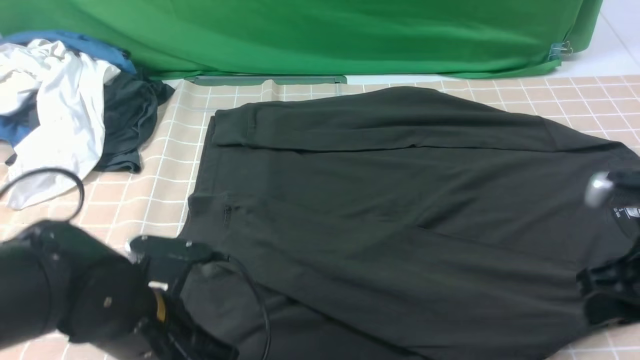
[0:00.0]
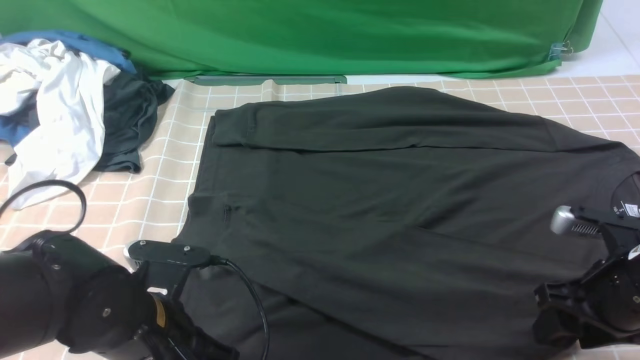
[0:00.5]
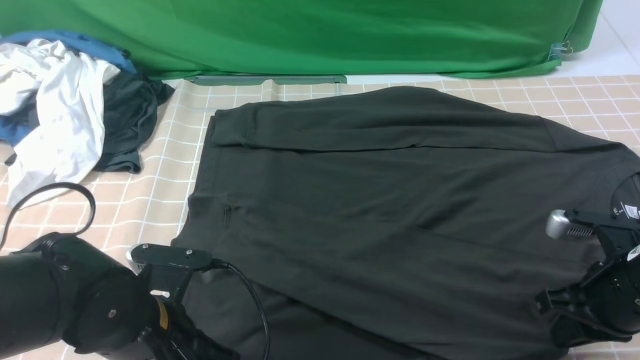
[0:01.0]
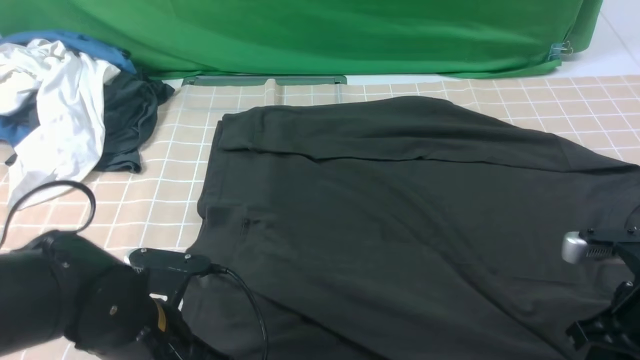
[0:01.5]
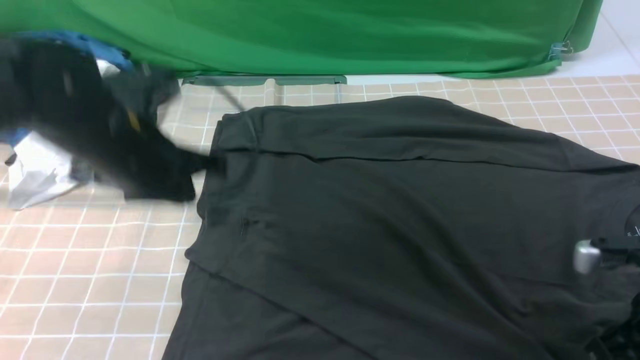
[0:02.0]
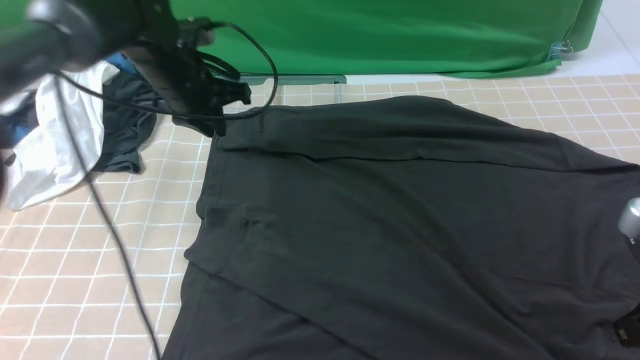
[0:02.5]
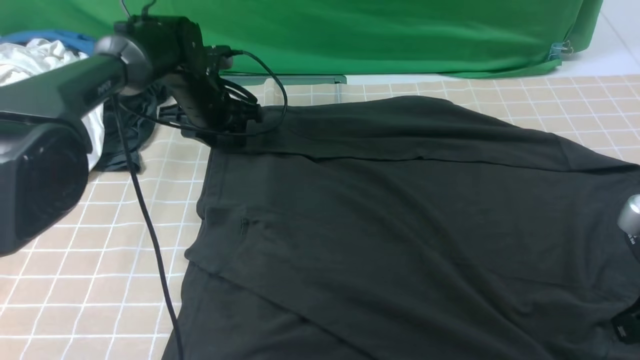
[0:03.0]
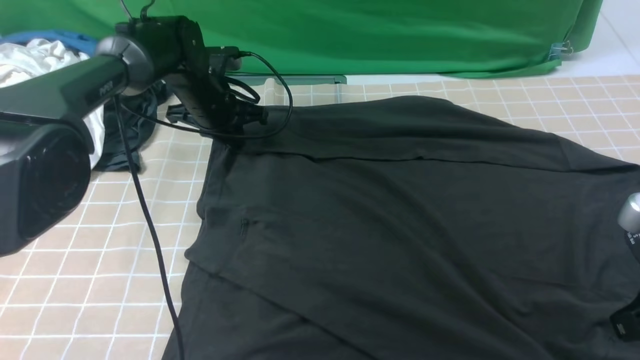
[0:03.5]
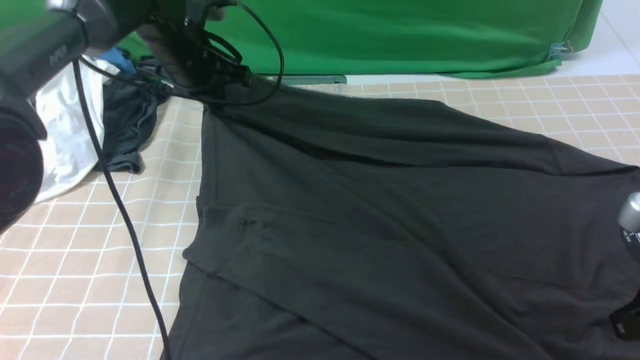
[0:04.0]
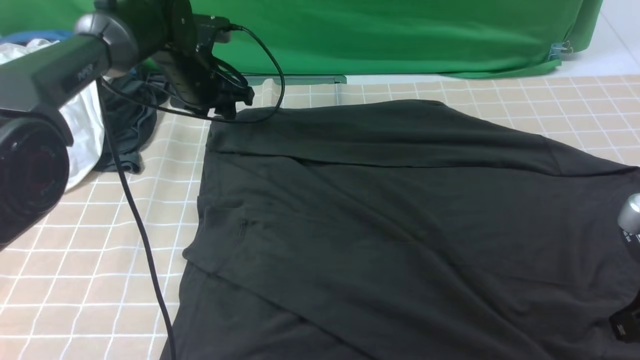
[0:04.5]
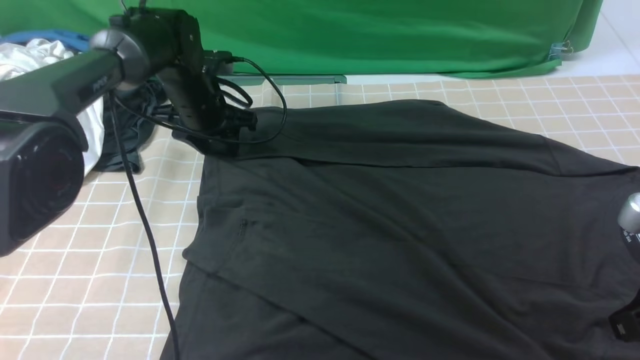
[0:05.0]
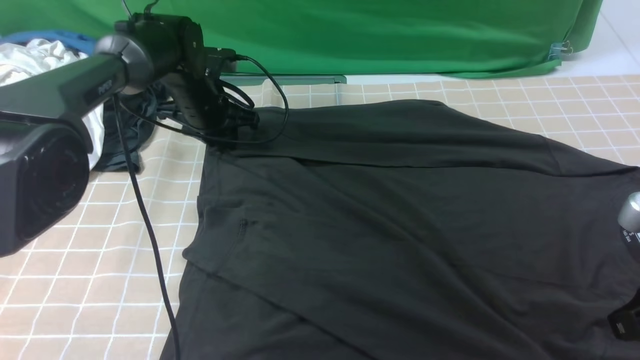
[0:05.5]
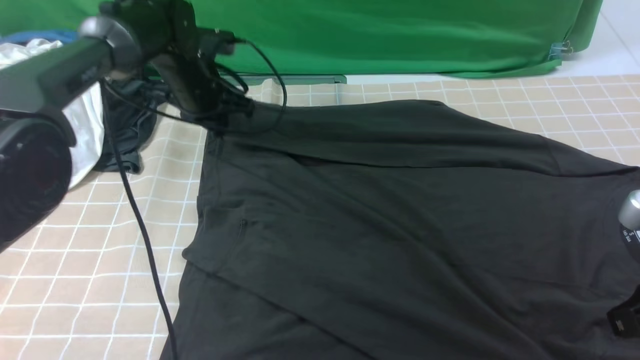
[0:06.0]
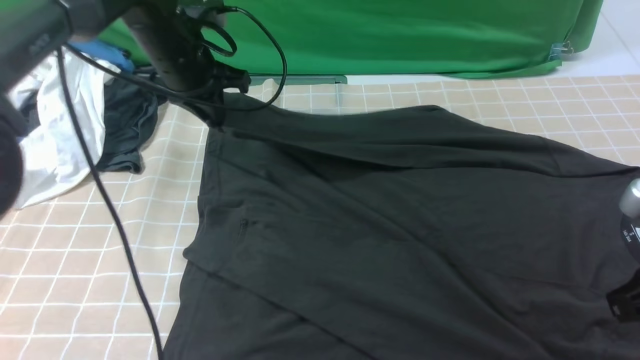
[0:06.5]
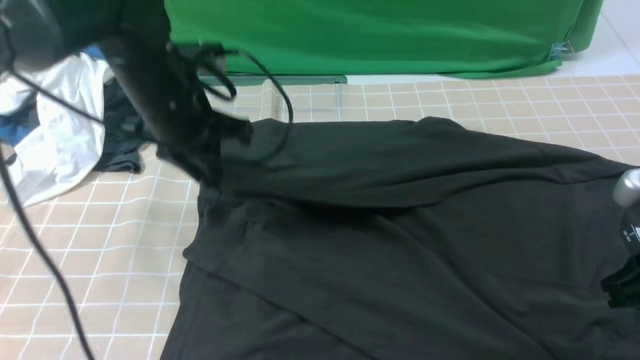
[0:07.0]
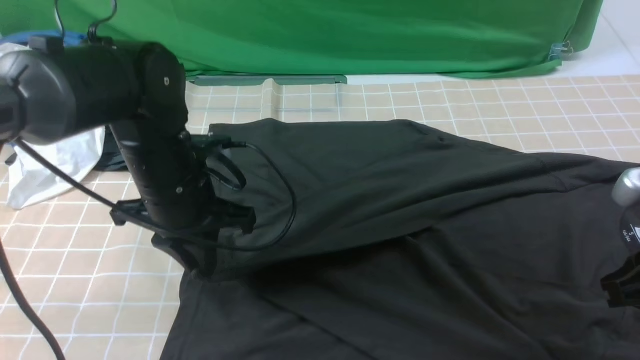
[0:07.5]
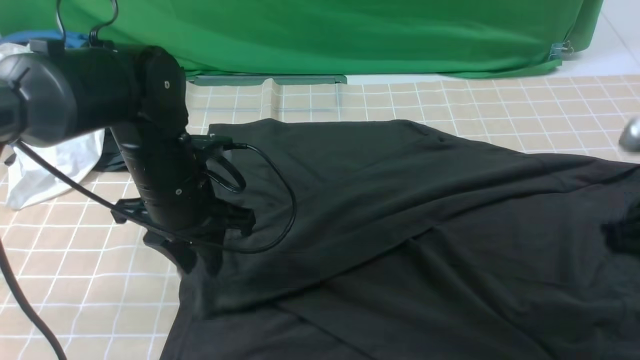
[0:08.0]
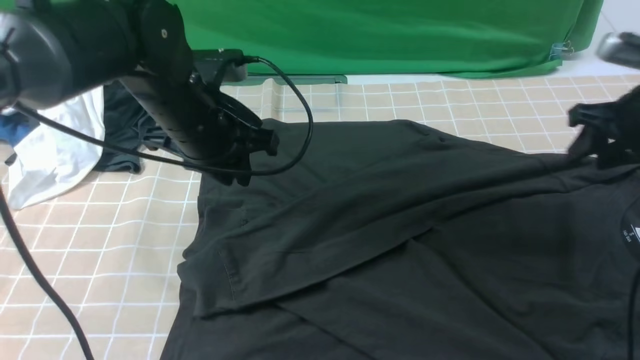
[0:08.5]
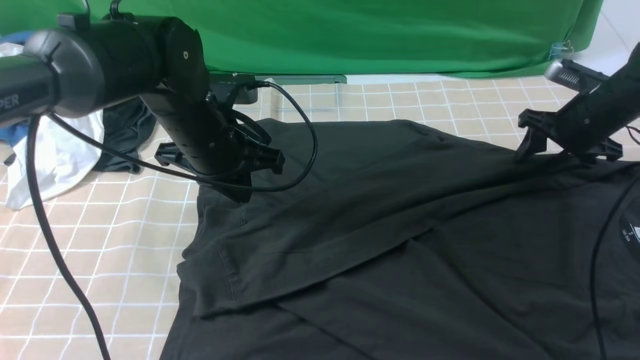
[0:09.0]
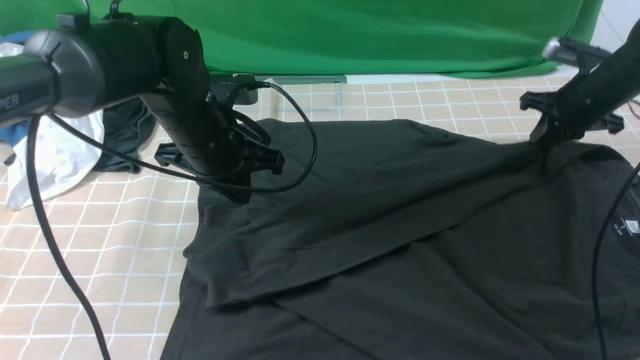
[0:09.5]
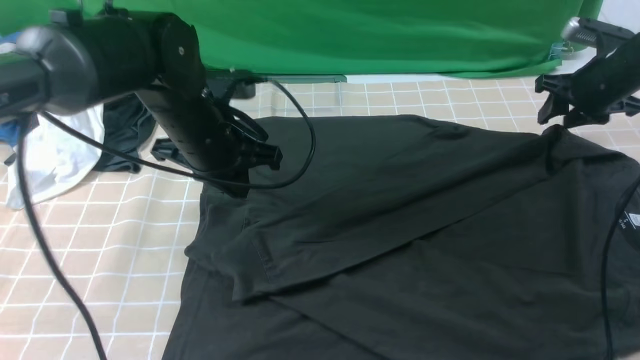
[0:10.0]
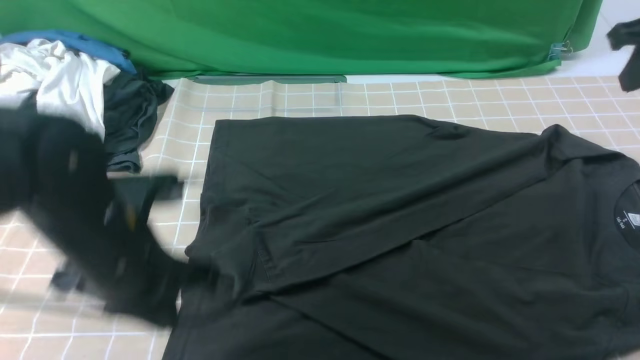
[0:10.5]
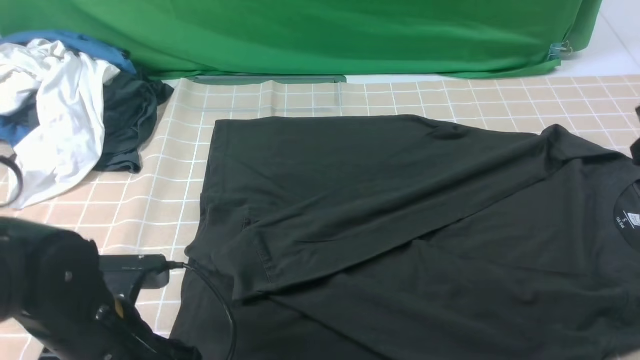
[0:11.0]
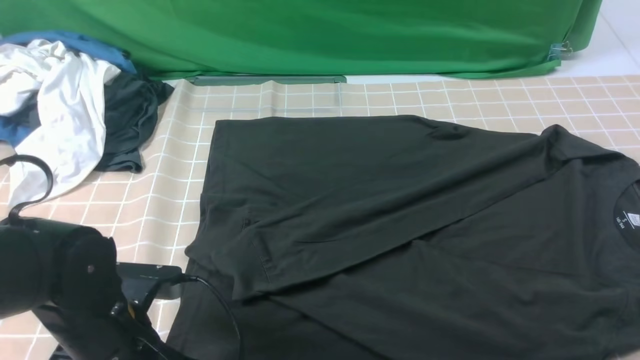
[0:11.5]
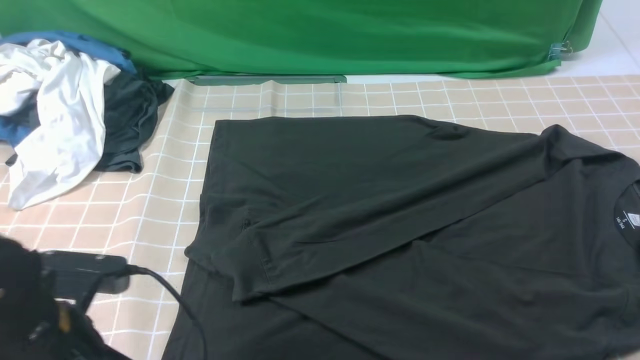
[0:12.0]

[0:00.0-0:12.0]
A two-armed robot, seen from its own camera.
Step, 0:00.0 to 0:05.5: use the left arm to clamp the cuff farthest from it.
Step, 0:06.0 to 0:08.0: use the left arm to drag and drop the cuff onto the cuff closest to the left arm.
0:00.0 to 0:02.0: The right gripper closes, then reopens, while the left gripper goes roughly 15 cm forward and upward.
0:02.0 to 0:04.0: The left gripper travels forward by approximately 20 cm, and opens, then closes again.
0:04.0 to 0:06.0: The left gripper opens, then closes again.
0:06.0 to 0:08.0: The right gripper goes about 5 cm forward. The left gripper moves backward, about 20 cm, and opens its fingers.
0:08.0 to 0:10.0: The right gripper heads forward, covering roughly 25 cm; the left gripper closes its fingers.
0:10.0 to 0:12.0: The two grippers go approximately 25 cm backward. The right gripper closes, then reopens, while the left gripper opens and closes again.

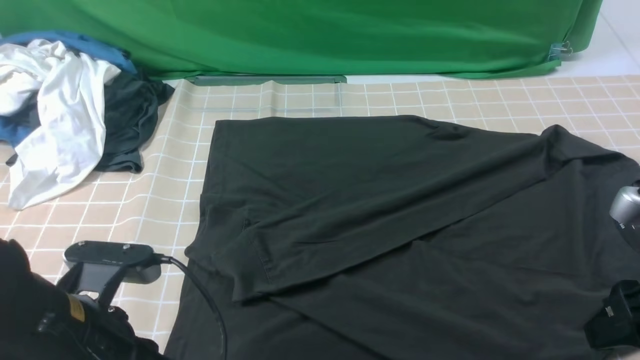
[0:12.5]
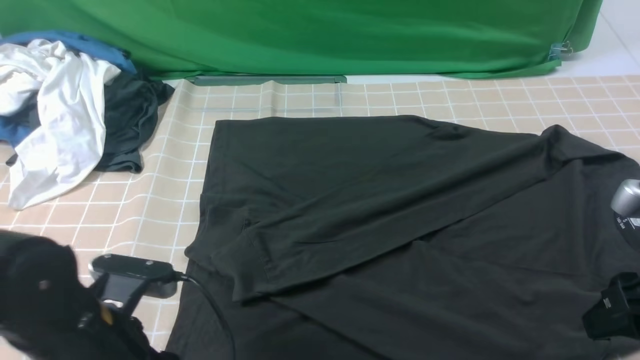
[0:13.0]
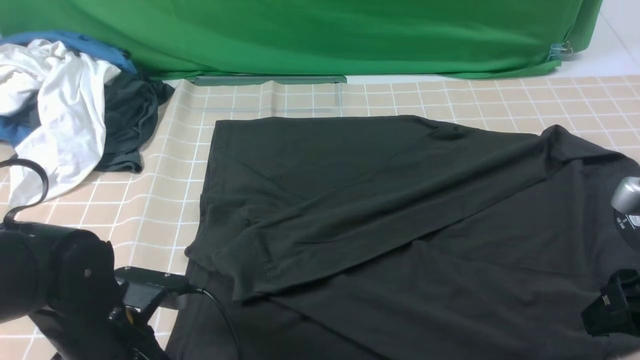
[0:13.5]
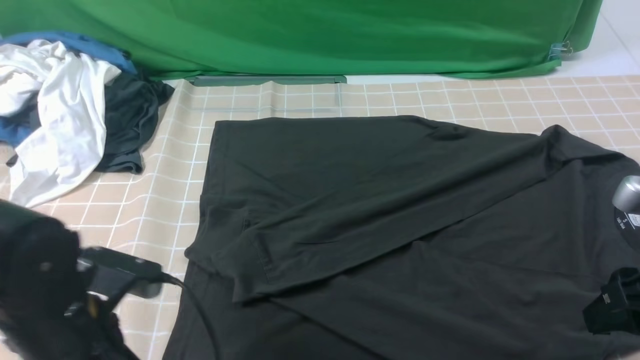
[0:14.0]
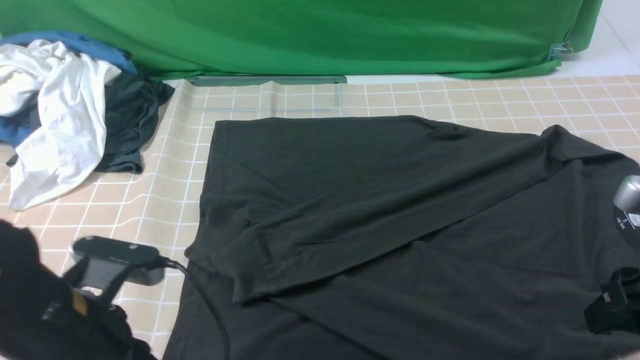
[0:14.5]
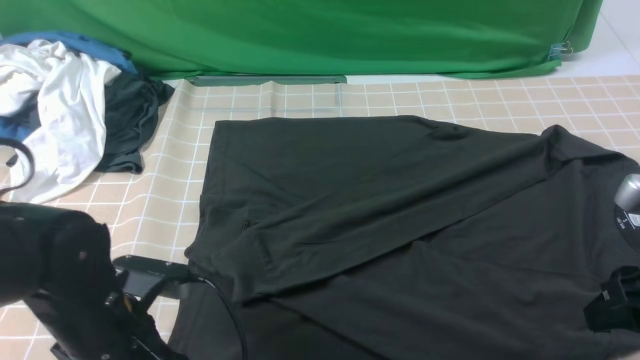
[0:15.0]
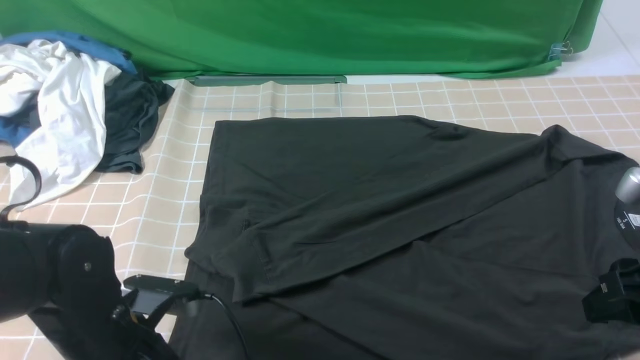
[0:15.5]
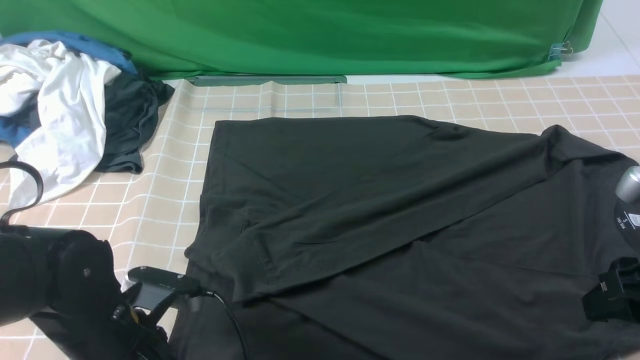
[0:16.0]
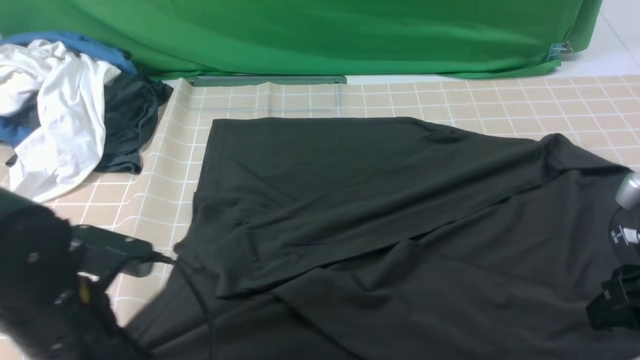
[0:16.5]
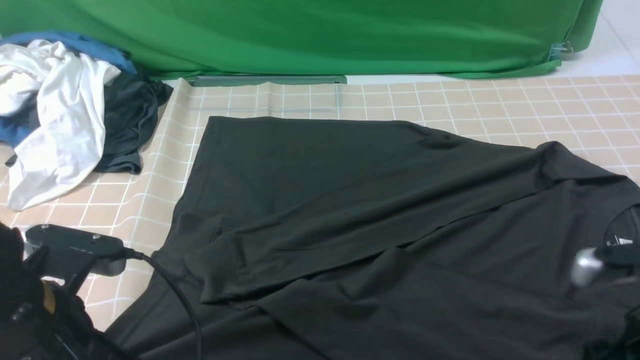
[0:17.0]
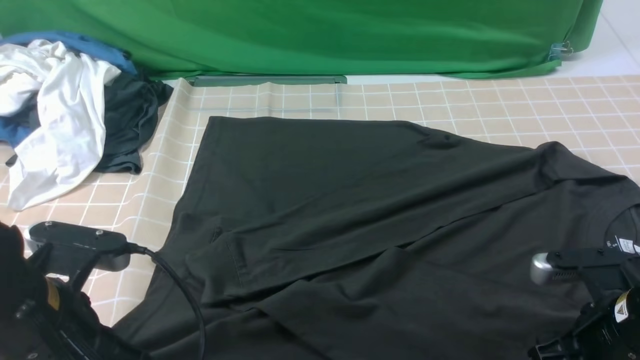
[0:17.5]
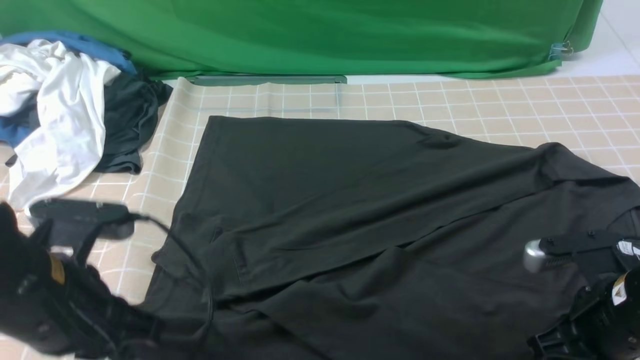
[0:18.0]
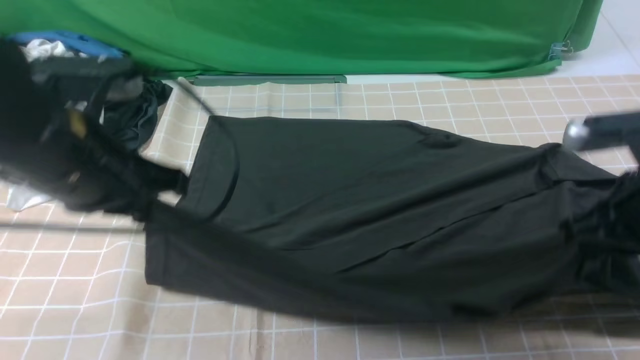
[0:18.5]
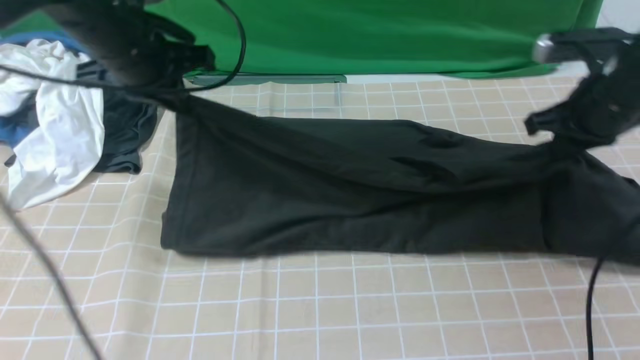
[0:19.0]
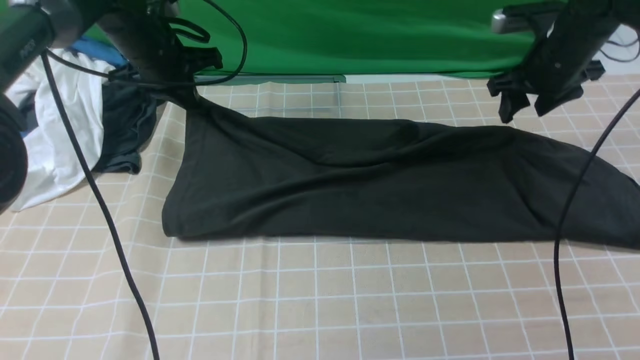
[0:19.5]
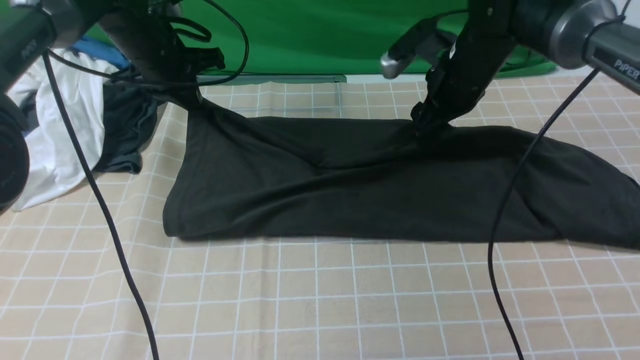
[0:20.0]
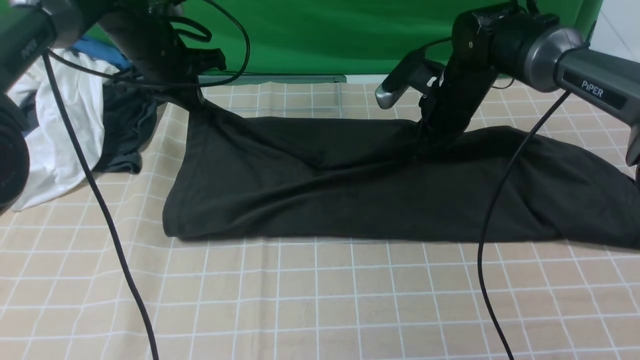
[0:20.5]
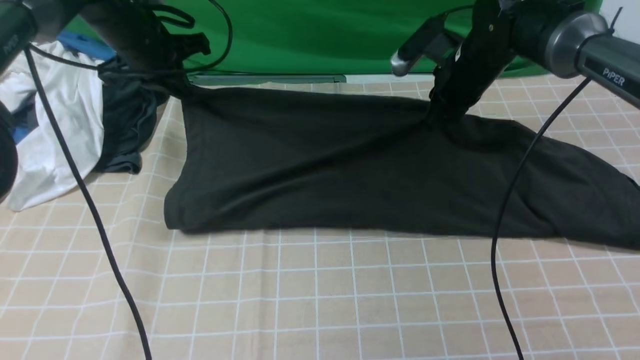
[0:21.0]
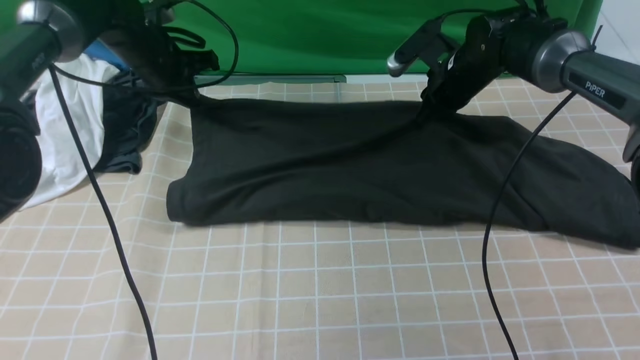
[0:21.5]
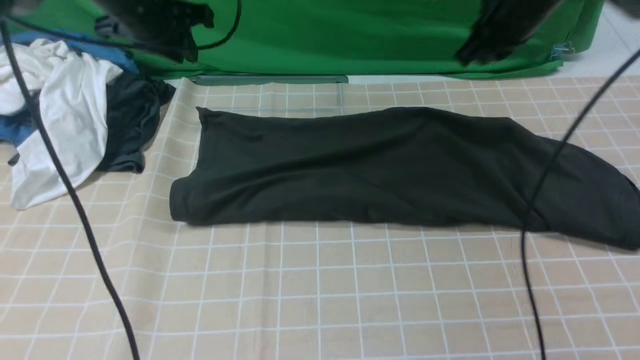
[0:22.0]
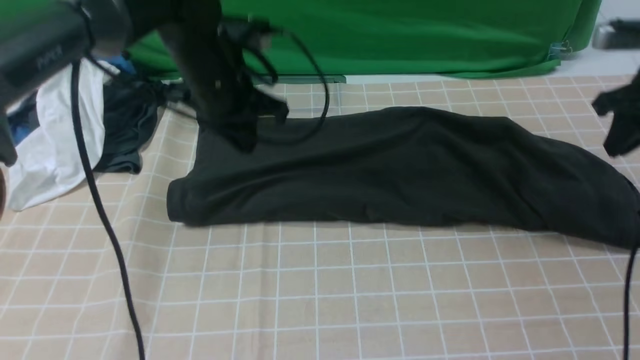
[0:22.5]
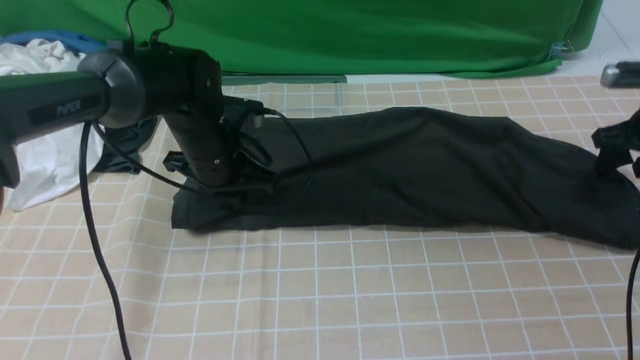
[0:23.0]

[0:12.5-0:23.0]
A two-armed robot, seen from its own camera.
Step, 0:12.5 to 0:18.0: use both arms simultaneously to clamp the lower edge of the clothing fabric.
Step, 0:18.5 to 0:21.5: use both arms to drag the lower edge of the fabric forward and fold it over the upper edge.
0:12.5 to 0:14.5: The left gripper opens, then closes once more.
0:14.5 to 0:16.5: The left gripper opens, then closes again.
0:16.5 to 0:19.0: Both grippers travel together forward, roughly 25 cm. The right gripper closes.
0:19.0 to 0:21.0: The right gripper shifts roughly 15 cm forward, to the left and downward, and opens, then closes once more. Meanwhile the left gripper is displaced forward and downward by some 10 cm.
0:21.0 to 0:23.0: The left gripper goes approximately 15 cm backward, to the right and downward, while the right gripper heads to the right, covering roughly 25 cm, and opens its fingers.
